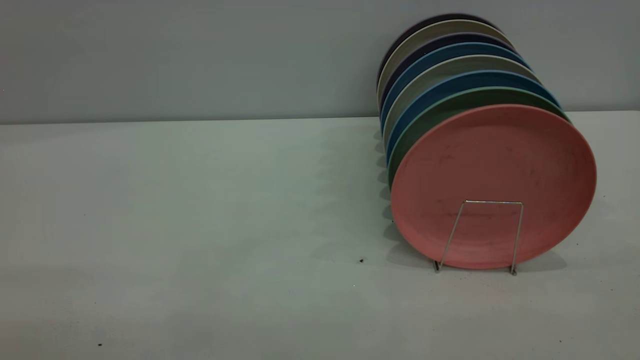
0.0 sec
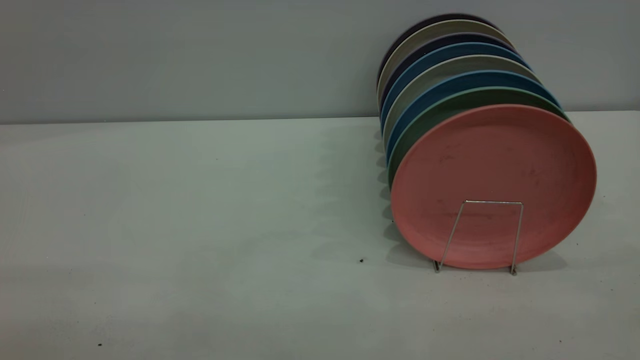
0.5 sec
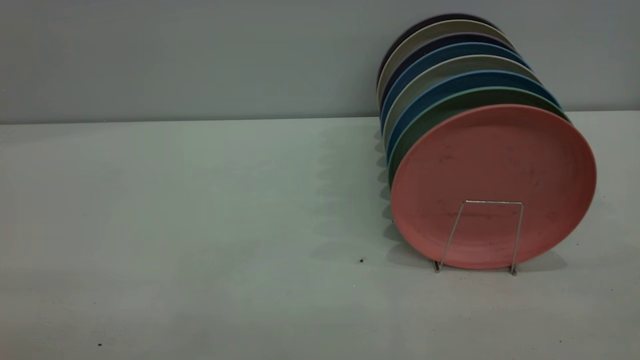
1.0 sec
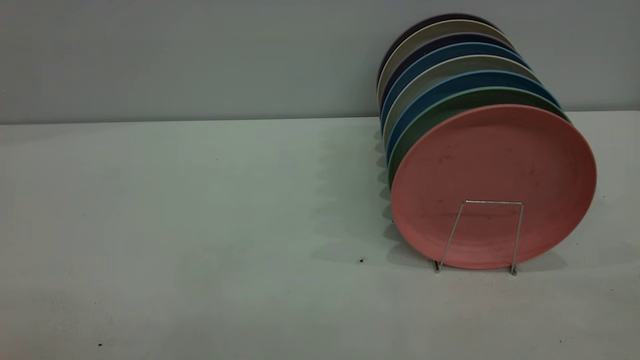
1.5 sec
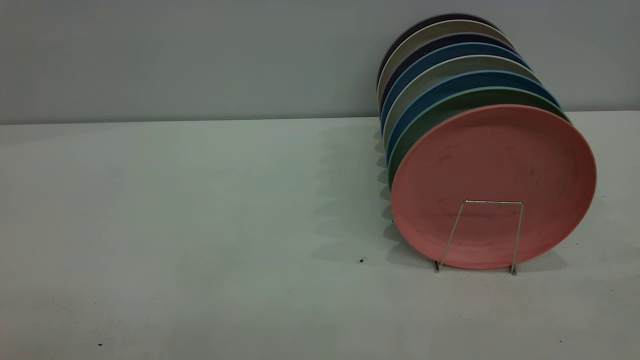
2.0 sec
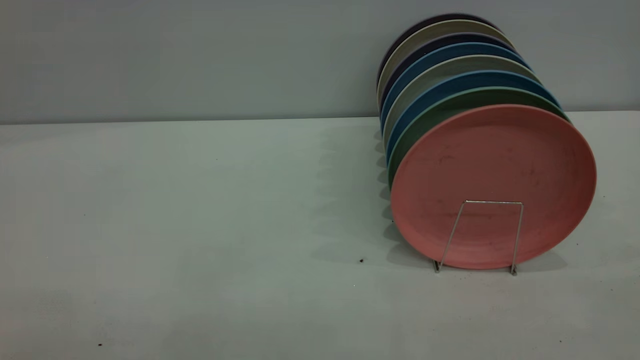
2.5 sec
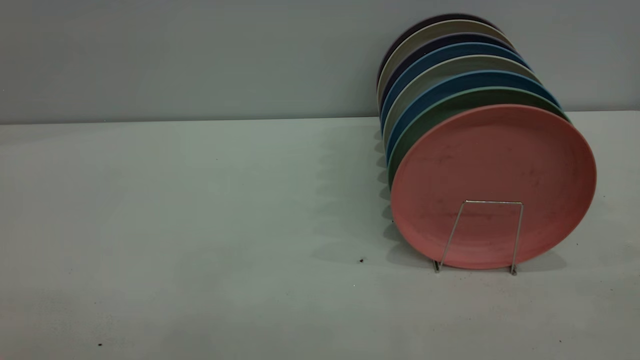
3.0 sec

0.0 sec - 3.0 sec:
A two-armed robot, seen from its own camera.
Task of the whole recording: put the plate on the plate rack.
1.5 sec - 3.0 sec: Both grippers stay about where they are.
